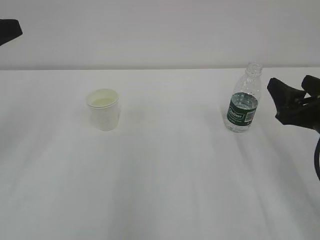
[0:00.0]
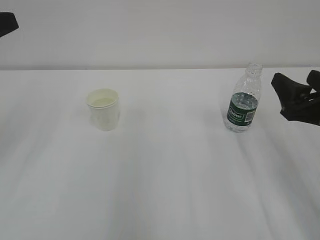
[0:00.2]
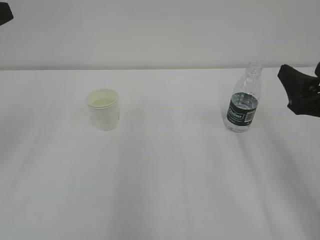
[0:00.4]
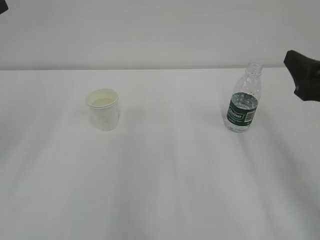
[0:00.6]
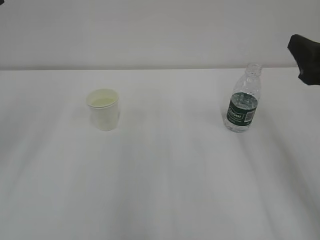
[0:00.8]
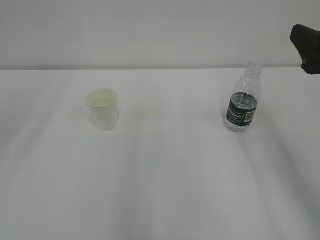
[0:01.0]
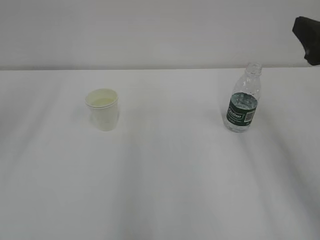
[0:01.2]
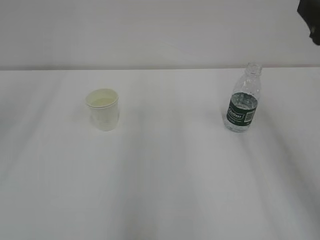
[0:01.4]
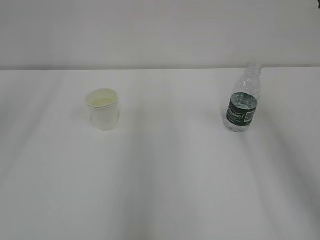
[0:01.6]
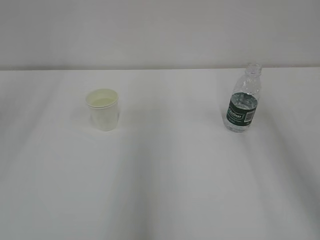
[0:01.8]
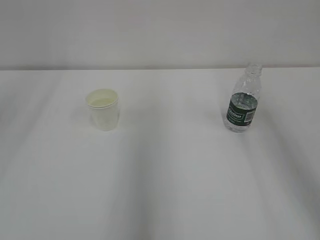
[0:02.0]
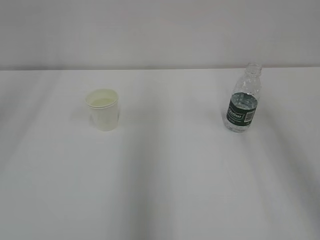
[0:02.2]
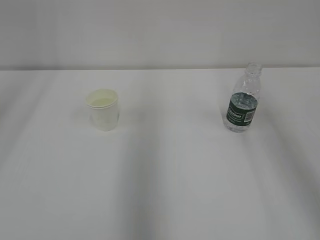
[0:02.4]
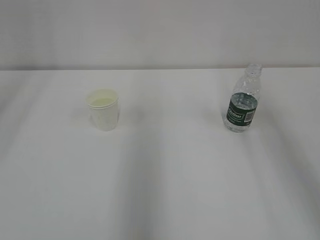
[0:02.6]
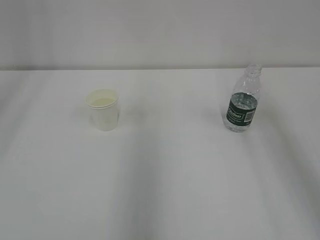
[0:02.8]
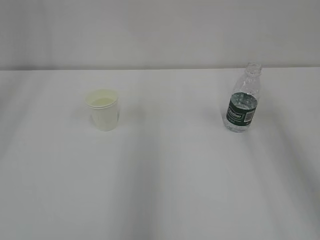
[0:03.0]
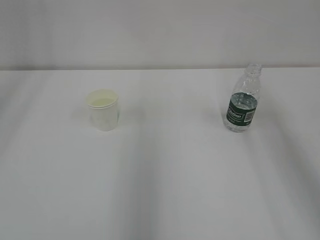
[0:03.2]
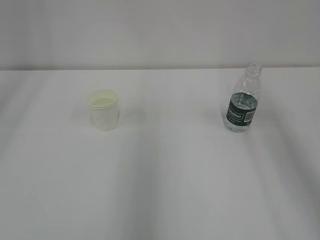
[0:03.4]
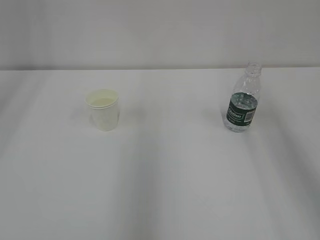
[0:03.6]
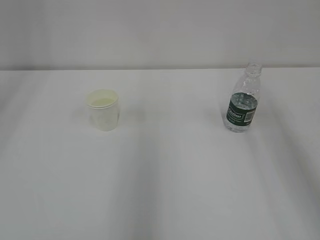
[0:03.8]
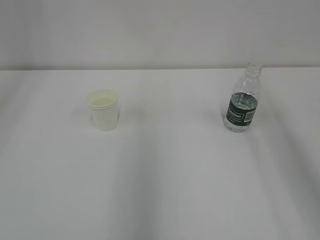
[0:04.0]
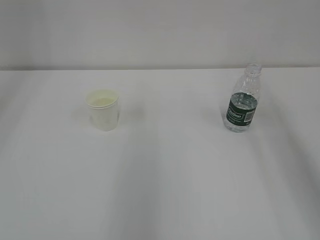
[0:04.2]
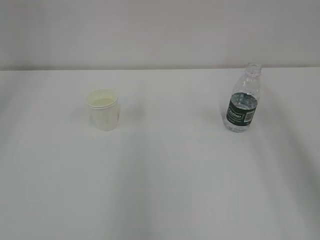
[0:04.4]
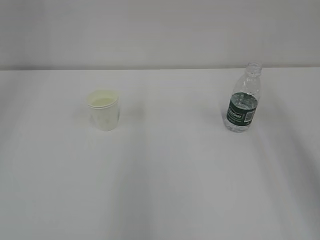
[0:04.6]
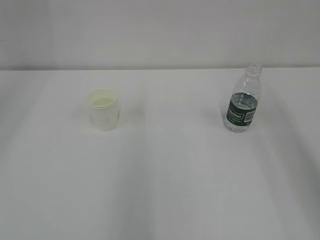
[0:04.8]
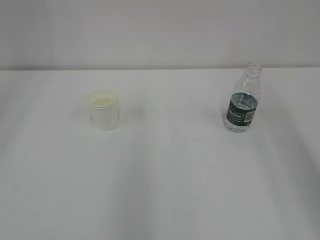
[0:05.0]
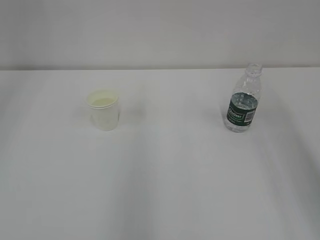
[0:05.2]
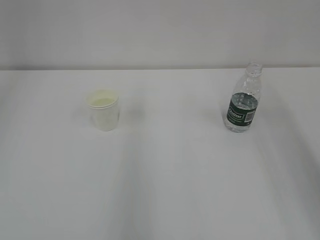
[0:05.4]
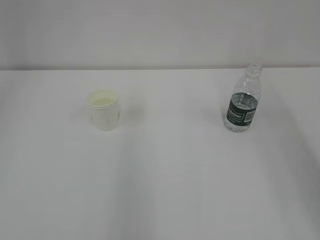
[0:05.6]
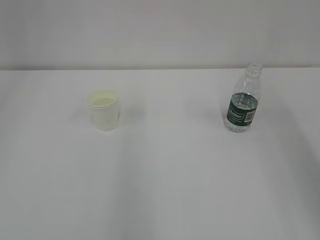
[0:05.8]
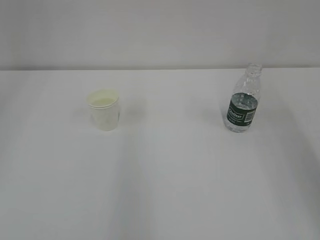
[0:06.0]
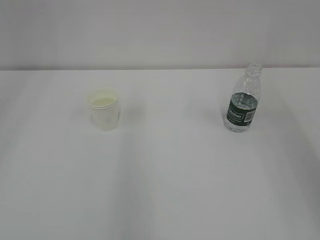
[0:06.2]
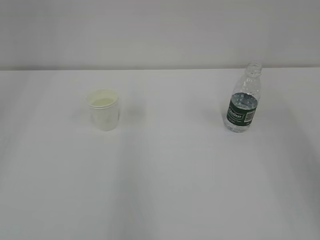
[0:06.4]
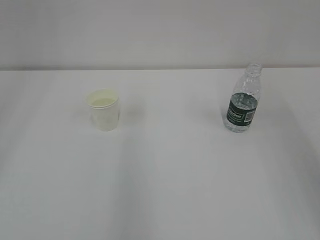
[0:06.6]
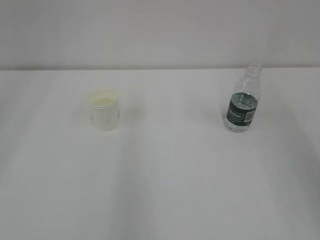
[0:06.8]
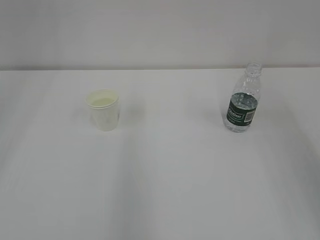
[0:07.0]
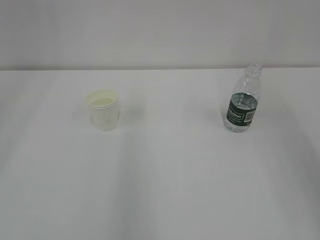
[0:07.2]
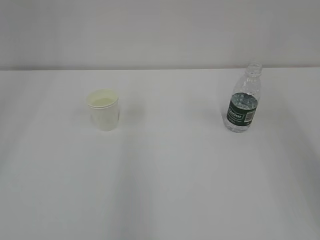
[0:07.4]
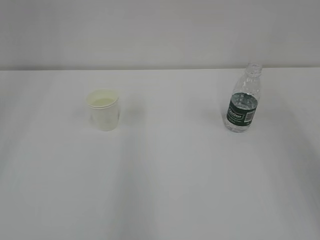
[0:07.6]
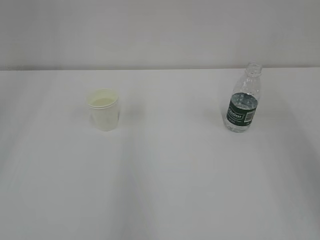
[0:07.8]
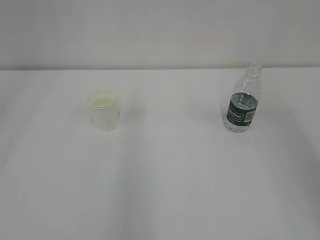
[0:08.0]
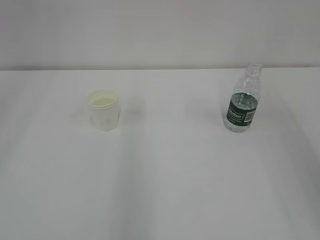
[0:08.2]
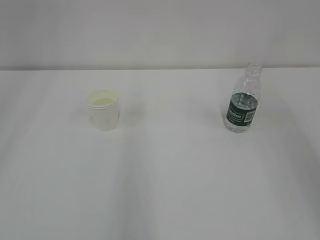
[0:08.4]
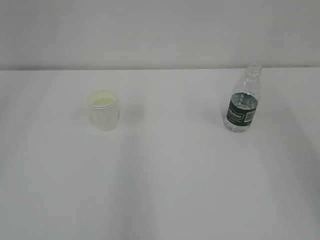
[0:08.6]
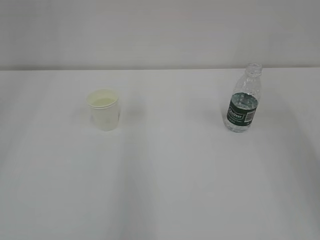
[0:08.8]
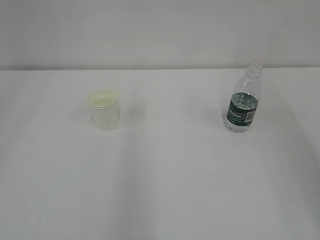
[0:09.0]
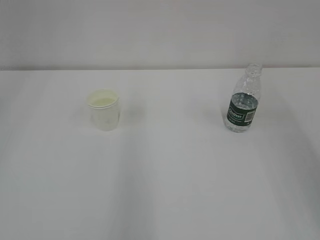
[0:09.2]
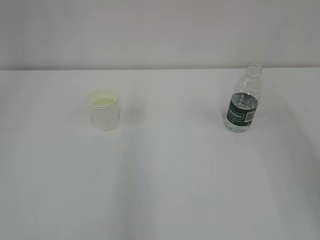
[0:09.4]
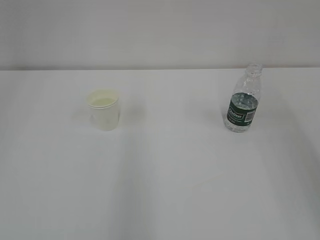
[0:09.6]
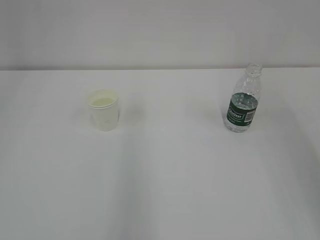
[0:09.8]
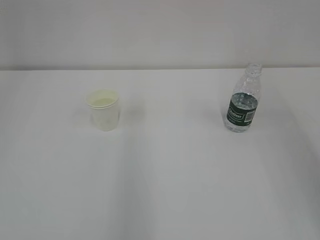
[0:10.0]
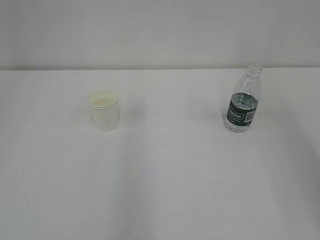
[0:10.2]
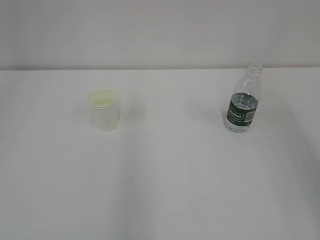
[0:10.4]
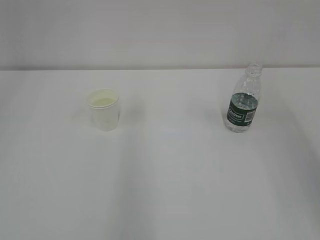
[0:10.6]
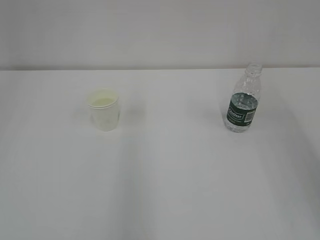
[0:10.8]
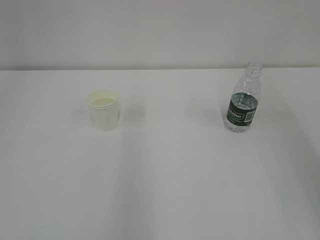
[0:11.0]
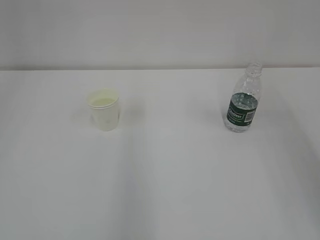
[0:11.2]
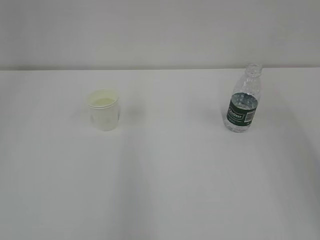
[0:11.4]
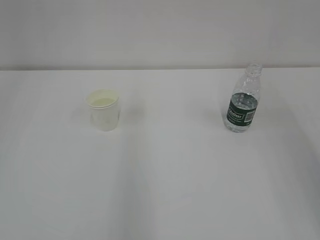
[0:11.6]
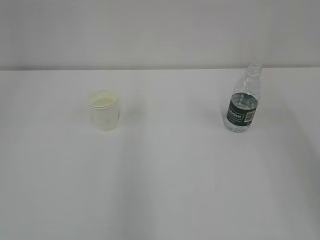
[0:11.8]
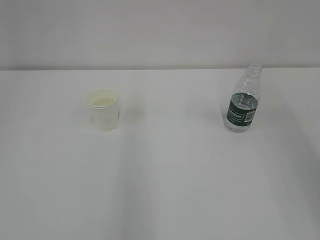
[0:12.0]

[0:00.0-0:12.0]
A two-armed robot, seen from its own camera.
0:00.0 to 0:01.6: The right gripper shifts approximately 15 cm upward.

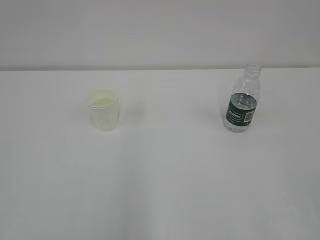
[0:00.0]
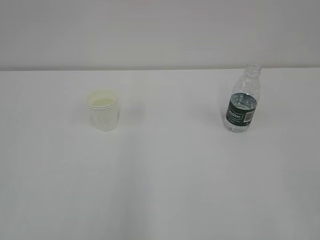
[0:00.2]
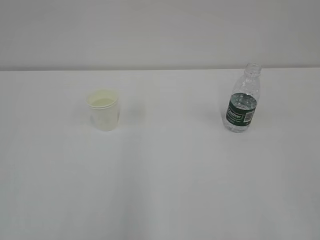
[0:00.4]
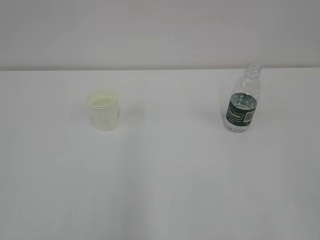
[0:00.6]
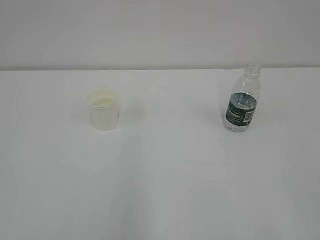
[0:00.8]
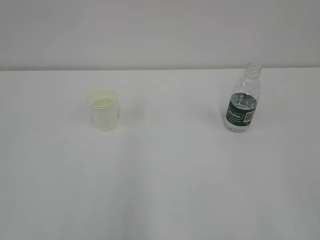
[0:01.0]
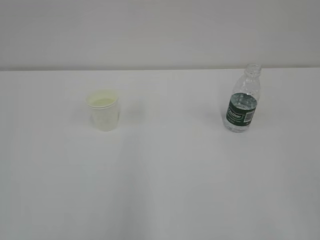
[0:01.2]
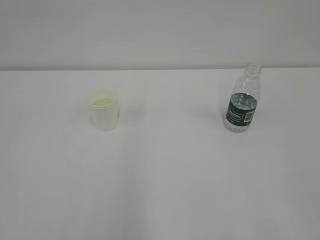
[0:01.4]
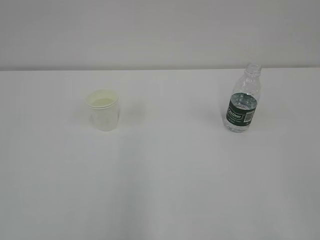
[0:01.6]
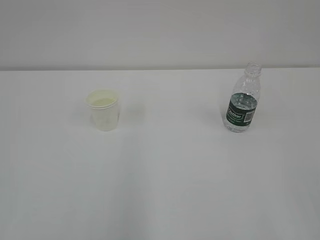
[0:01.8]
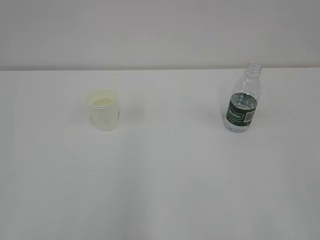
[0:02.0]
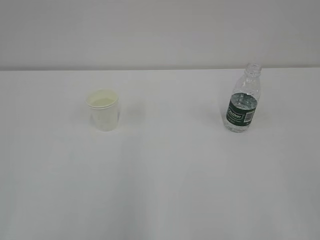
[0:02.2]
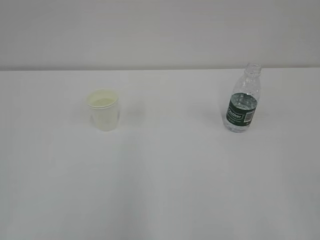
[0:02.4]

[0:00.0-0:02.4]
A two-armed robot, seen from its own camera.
0:00.0 to 0:02.4: Neither gripper changes place.

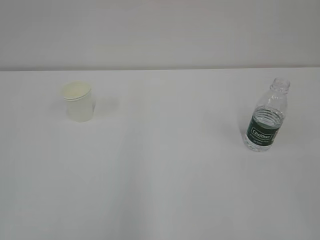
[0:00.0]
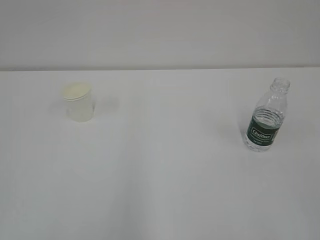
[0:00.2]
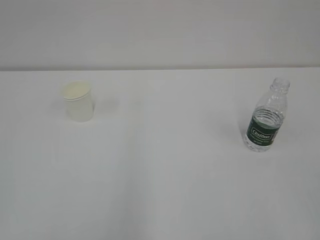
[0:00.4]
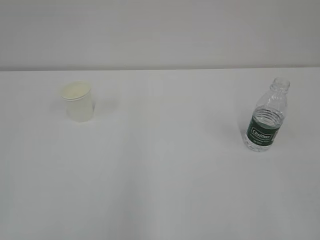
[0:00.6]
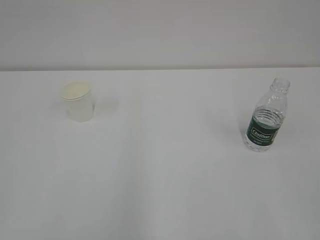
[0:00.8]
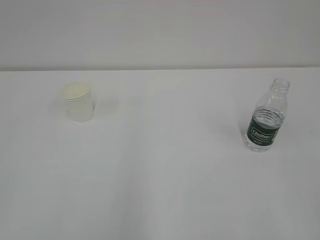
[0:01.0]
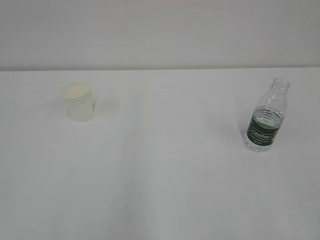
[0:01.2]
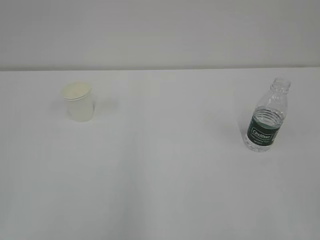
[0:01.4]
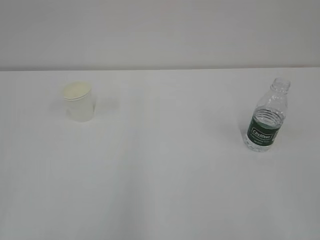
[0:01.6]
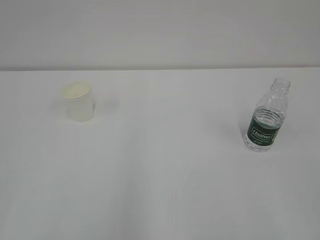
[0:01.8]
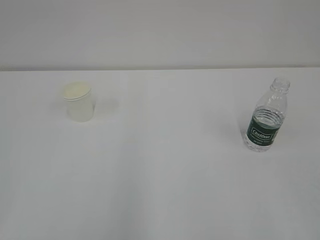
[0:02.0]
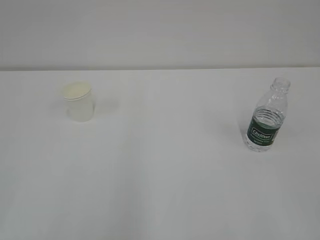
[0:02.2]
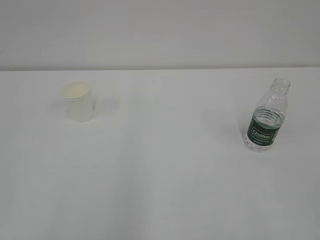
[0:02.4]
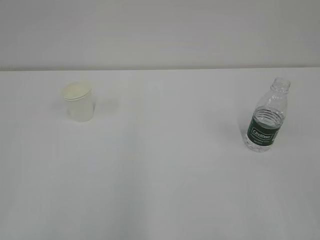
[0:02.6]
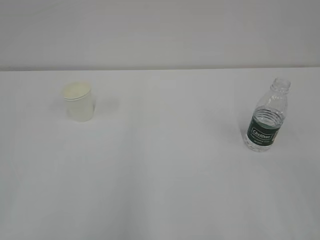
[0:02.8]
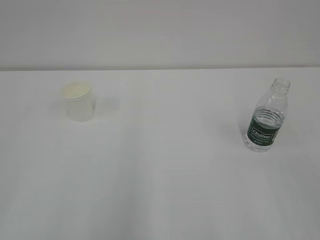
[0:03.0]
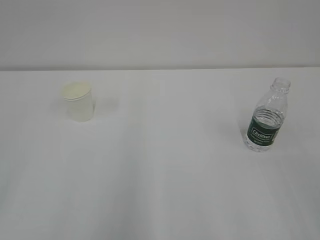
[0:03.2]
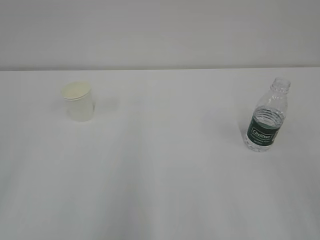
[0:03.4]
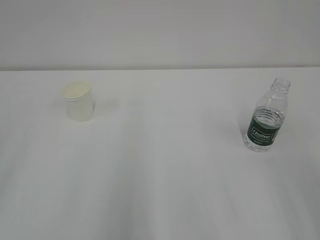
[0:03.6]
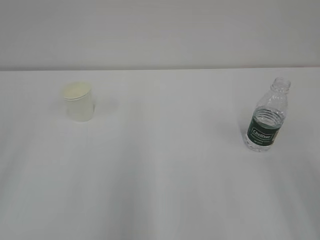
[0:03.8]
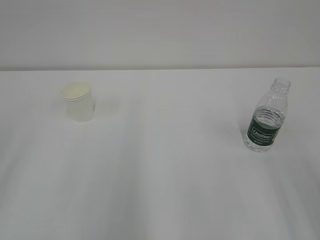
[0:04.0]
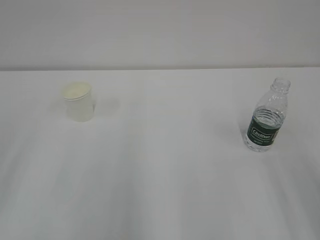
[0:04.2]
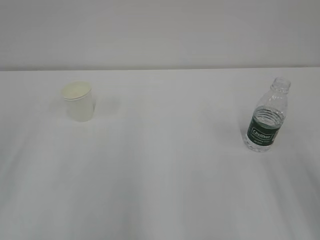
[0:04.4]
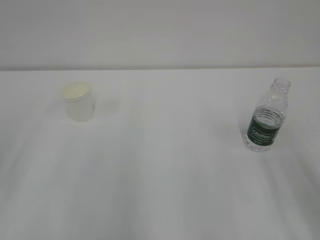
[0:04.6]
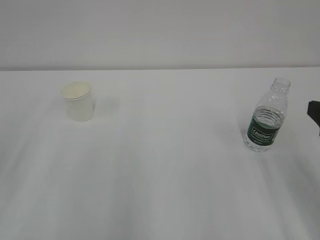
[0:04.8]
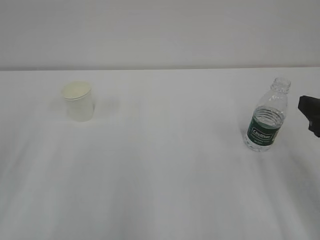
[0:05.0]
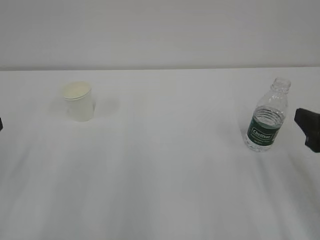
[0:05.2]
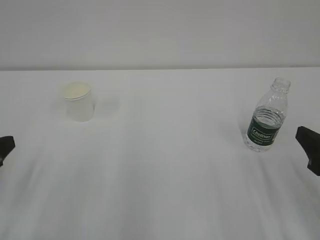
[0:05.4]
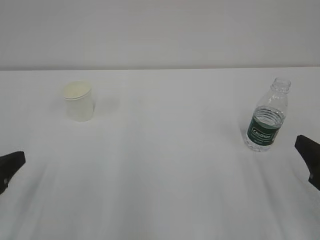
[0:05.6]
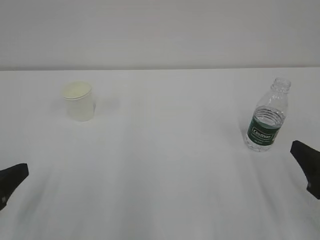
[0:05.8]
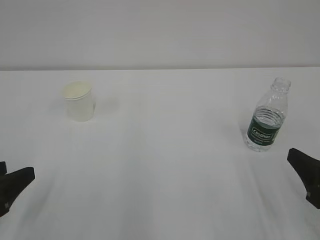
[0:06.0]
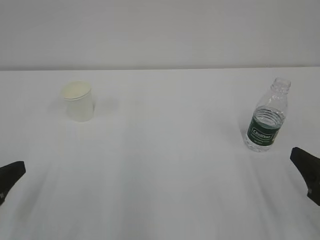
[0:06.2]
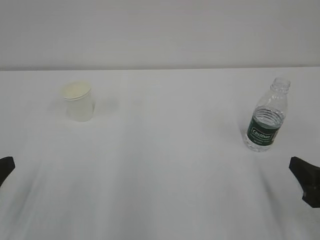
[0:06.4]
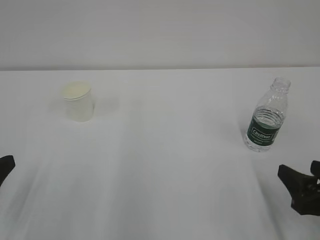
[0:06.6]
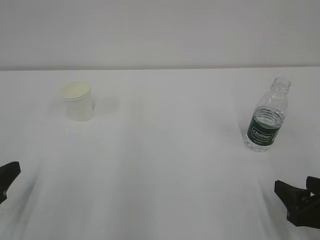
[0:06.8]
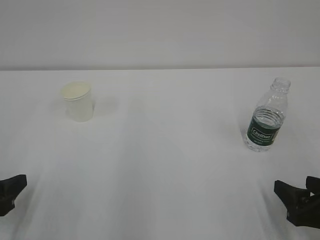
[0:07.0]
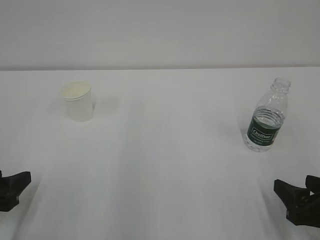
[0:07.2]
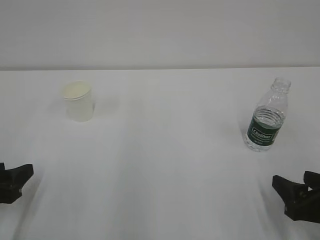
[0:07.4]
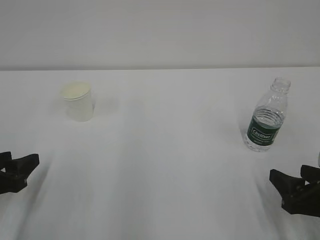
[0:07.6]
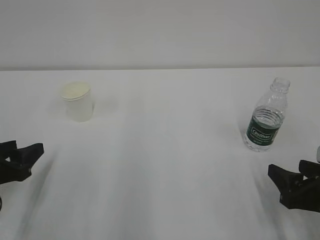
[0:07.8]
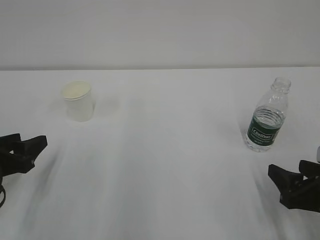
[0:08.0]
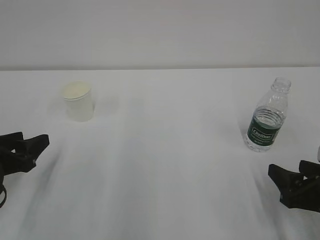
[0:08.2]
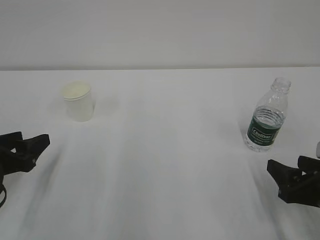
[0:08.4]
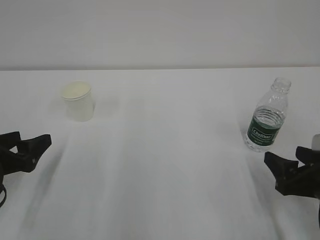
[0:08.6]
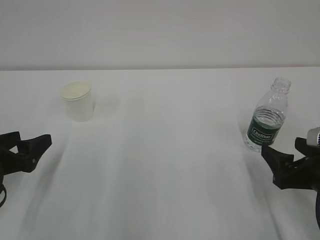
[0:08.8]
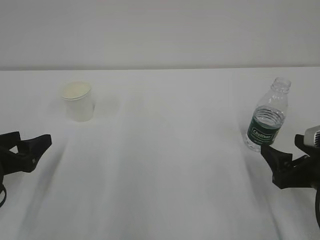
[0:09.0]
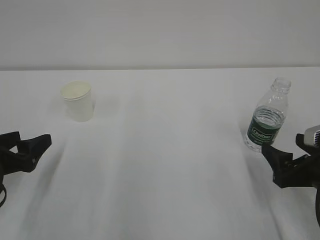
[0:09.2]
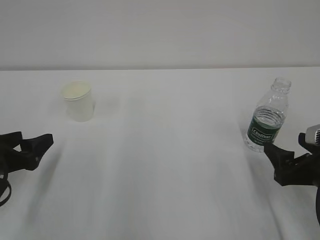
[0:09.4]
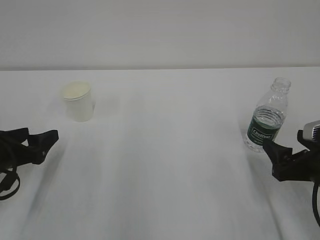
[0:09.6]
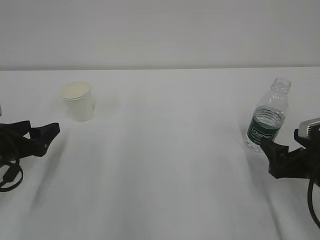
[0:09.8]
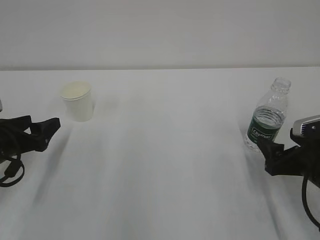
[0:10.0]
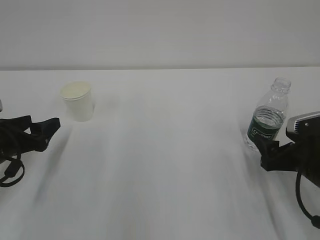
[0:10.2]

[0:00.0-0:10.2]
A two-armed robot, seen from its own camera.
0:04.4 to 0:05.8: Both grippers move downward, some 10 cm.
0:05.8 to 0:07.2: The right gripper shifts about 5 cm downward.
0:07.2 to 0:08.8: The right gripper moves roughly 5 cm. Meanwhile the left gripper travels forward by roughly 5 cm, and opens up.
0:08.8 to 0:10.2: The grippers move only a little.
